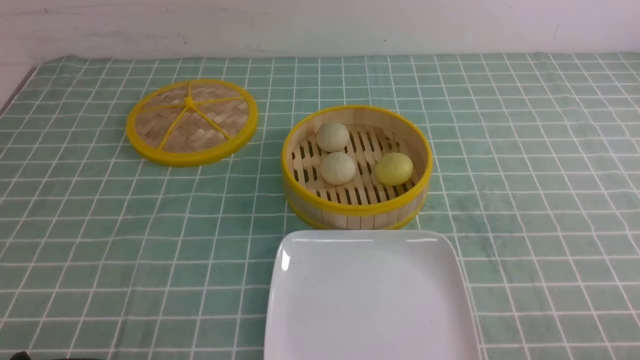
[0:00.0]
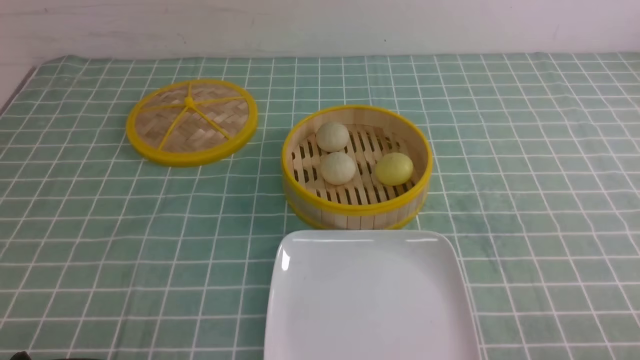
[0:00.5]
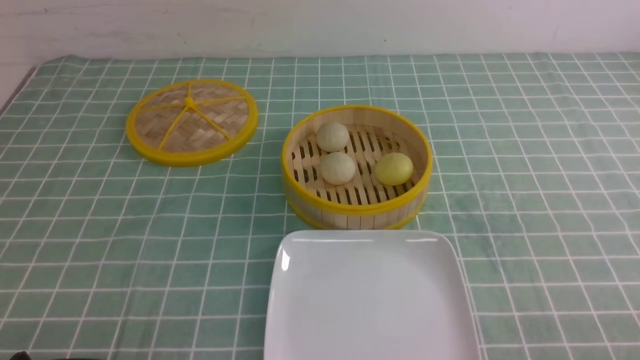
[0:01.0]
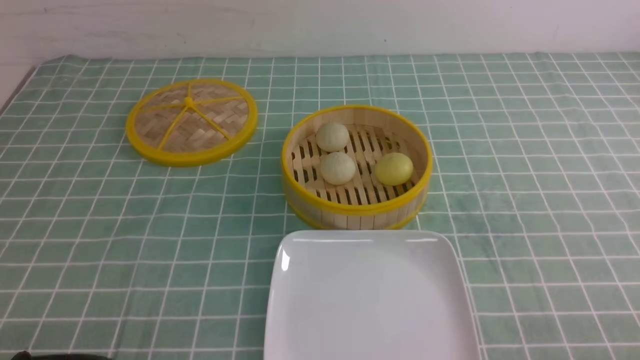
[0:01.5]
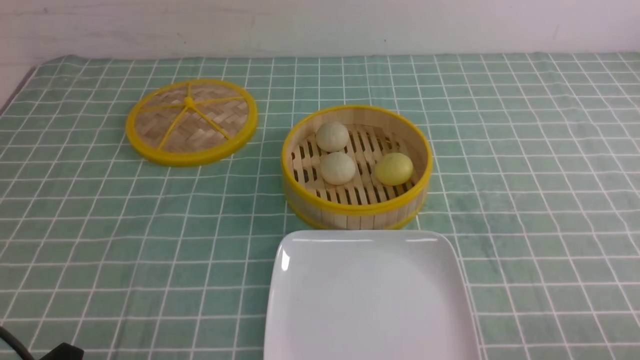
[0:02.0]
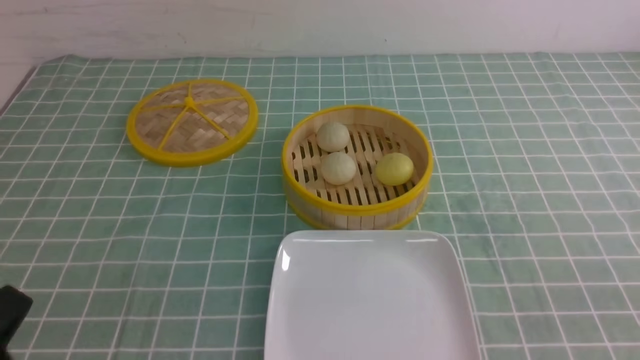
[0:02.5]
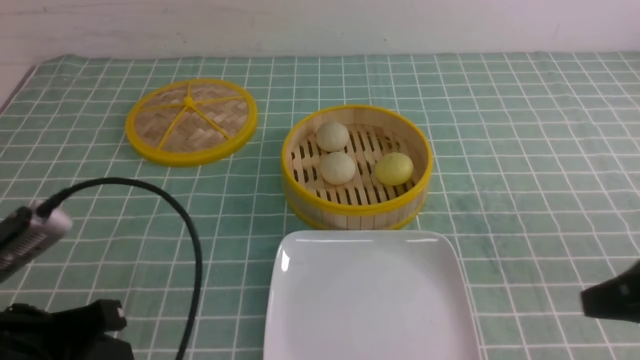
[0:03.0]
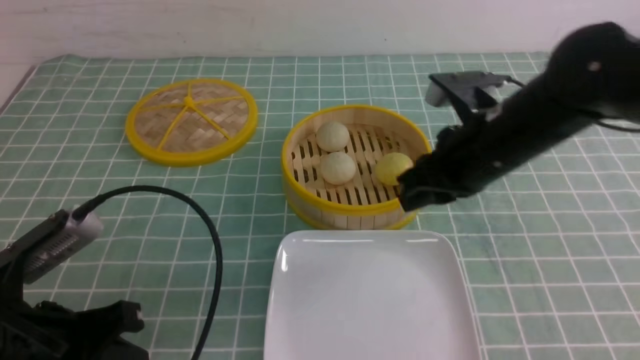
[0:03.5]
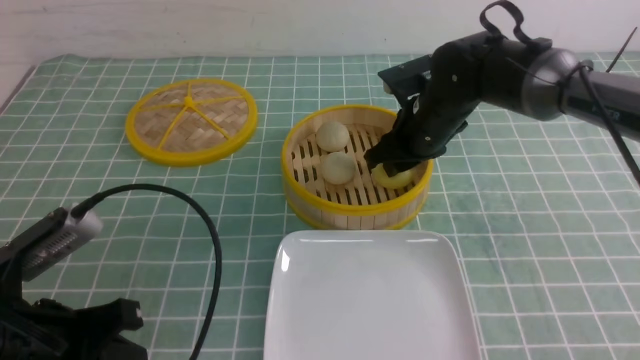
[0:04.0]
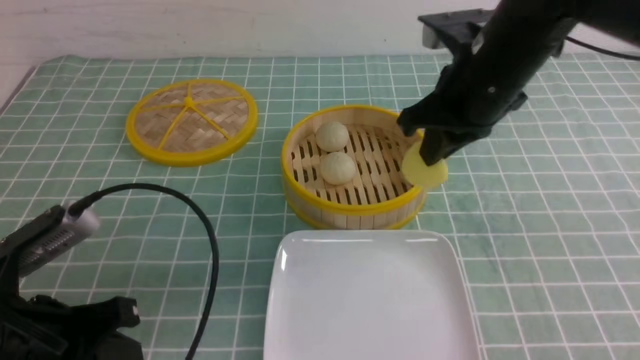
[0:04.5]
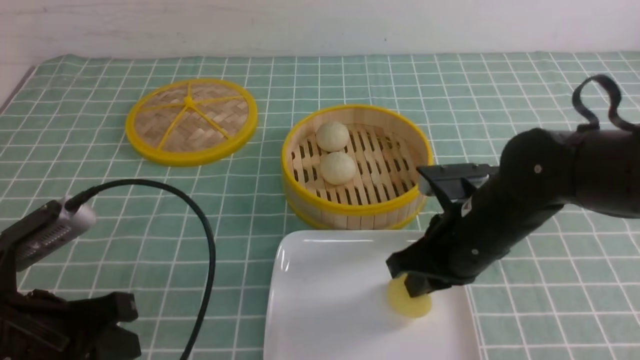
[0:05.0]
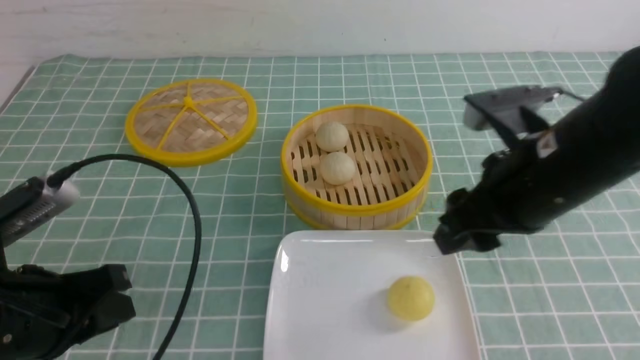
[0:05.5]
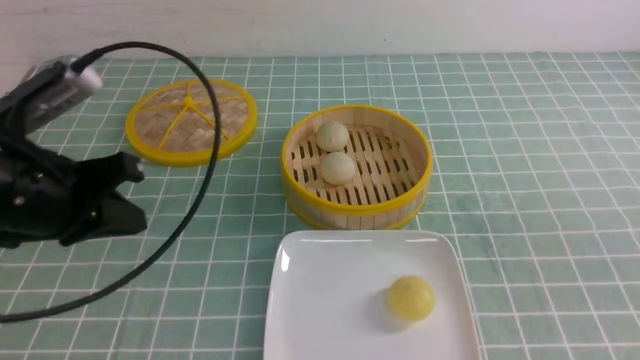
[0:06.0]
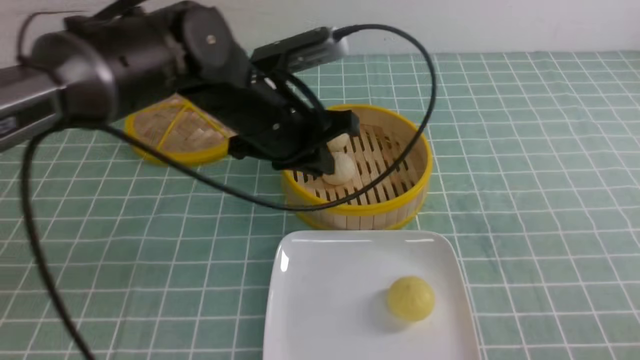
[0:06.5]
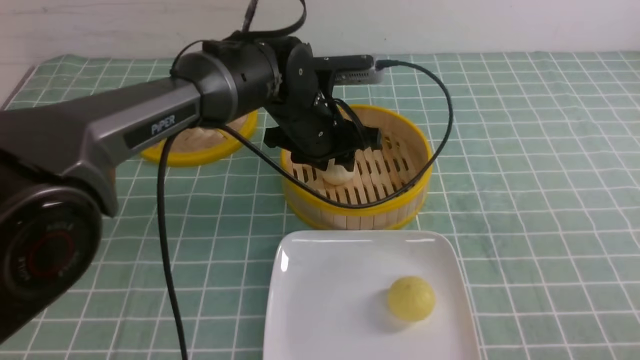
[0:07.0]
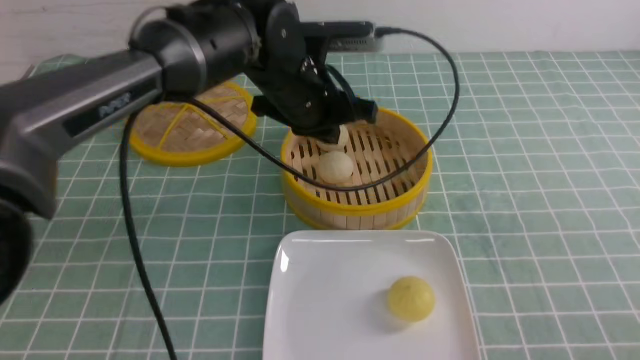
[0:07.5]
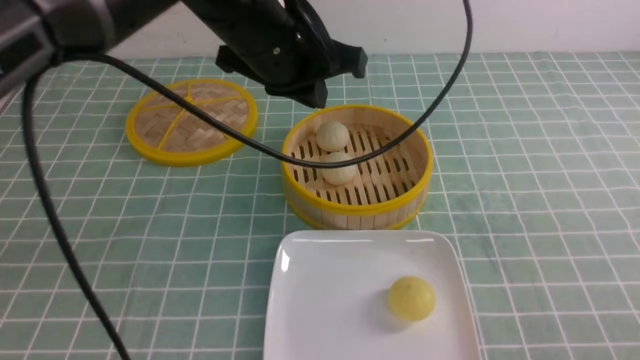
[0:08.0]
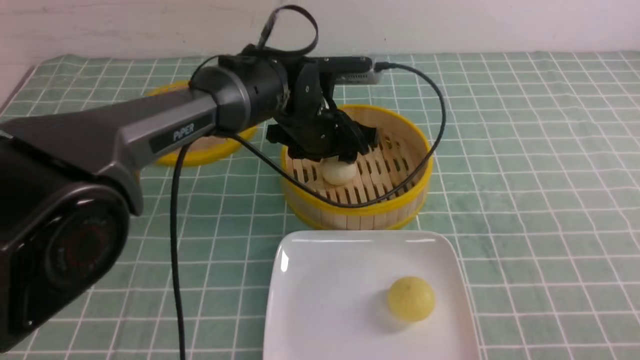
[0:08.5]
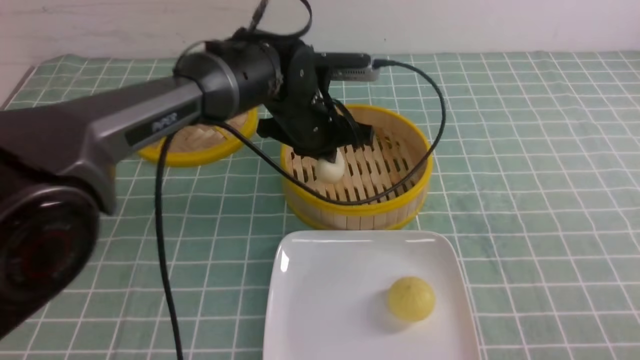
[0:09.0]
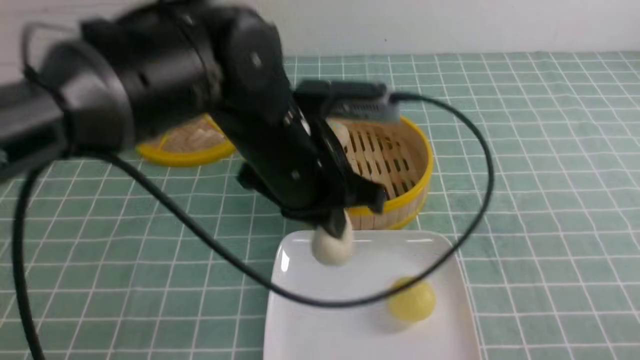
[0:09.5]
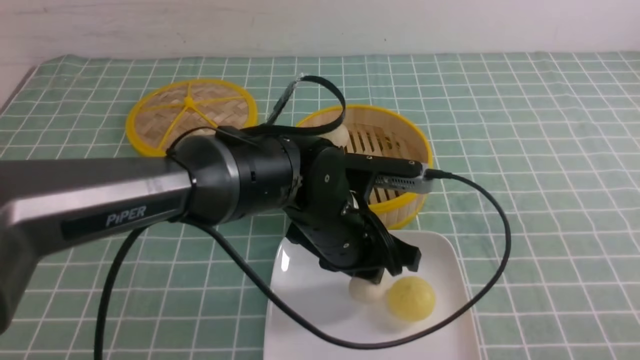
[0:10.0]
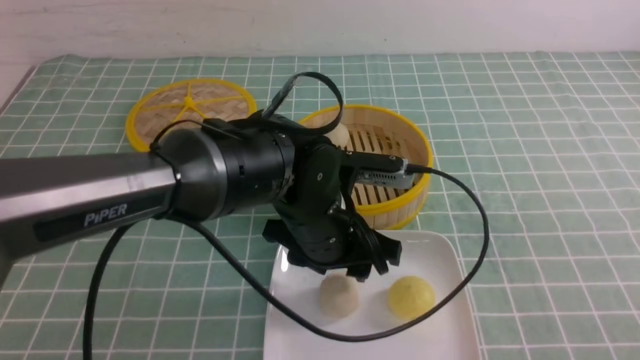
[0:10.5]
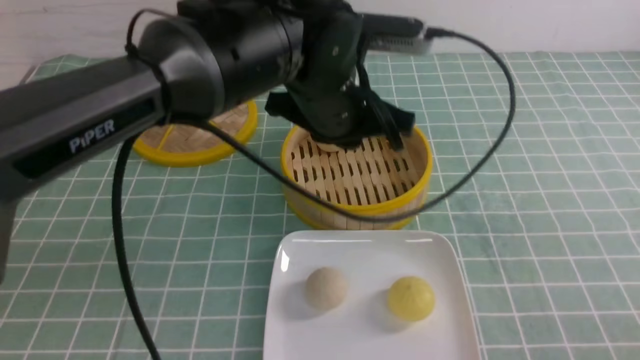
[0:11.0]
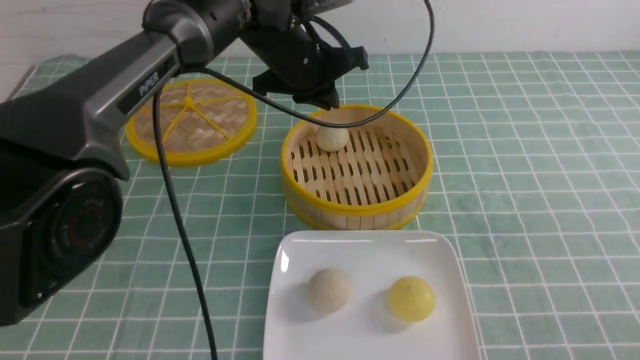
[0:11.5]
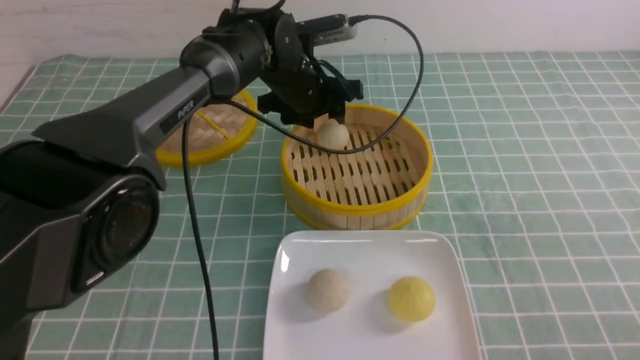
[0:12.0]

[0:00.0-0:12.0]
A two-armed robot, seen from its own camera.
Step, 0:00.0 to 0:04.0: use the right arm to grab the steamed stuffed bun that is closest to it.
Step, 0:04.5 to 0:05.0: use the right arm to put the steamed stuffed bun into the plate.
Step, 0:05.5 to 0:08.5: use the left arm to grab the steamed stuffed bun that is closest to it.
Step, 0:09.0 to 0:10.0: use the left arm to put the steamed stuffed bun into the plate.
0:02.0 to 0:04.0: The left gripper is displaced forward and upward by roughly 10 cm, and closes up, while the right gripper heads forward and to the left, covering roughly 40 cm, and closes, then reopens.
0:04.0 to 0:06.0: The right gripper moves backward and to the right, some 35 cm, and closes up, while the left gripper shifts about 10 cm forward and upward.
0:06.0 to 0:08.0: The right gripper goes some 5 cm downward. Meanwhile the left gripper shifts some 20 cm to the right and forward, and opens, then closes again.
0:08.0 to 0:10.0: The left gripper travels downward and backward by approximately 15 cm, and opens, then closes once more.
0:10.0 to 0:12.0: The left gripper is displaced forward by about 20 cm, and opens its fingers.

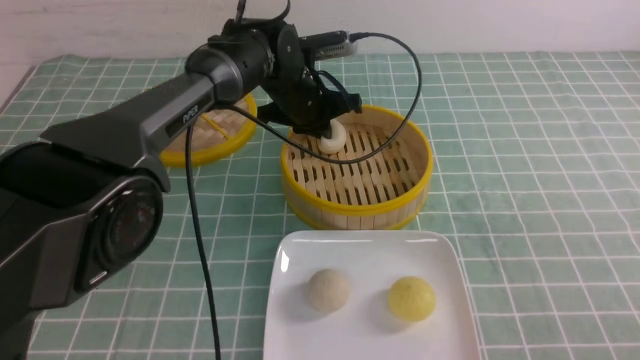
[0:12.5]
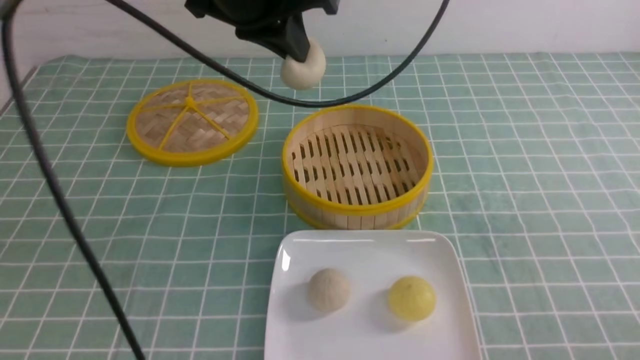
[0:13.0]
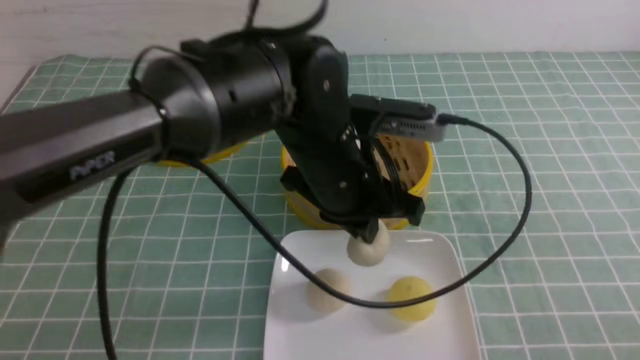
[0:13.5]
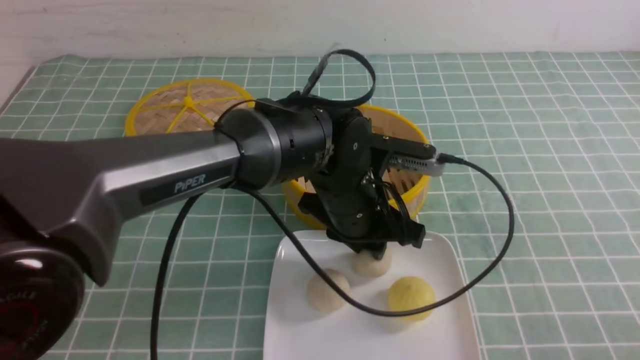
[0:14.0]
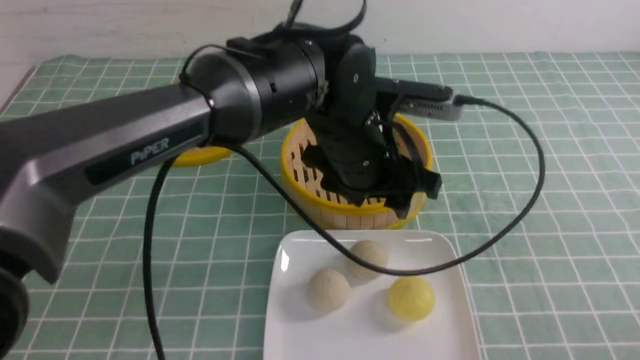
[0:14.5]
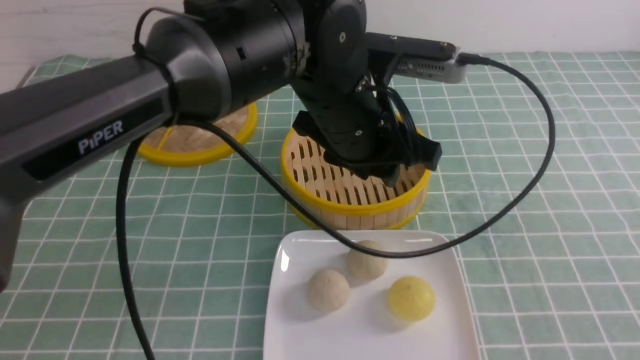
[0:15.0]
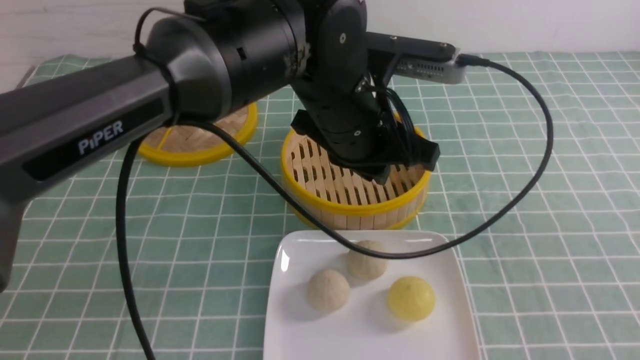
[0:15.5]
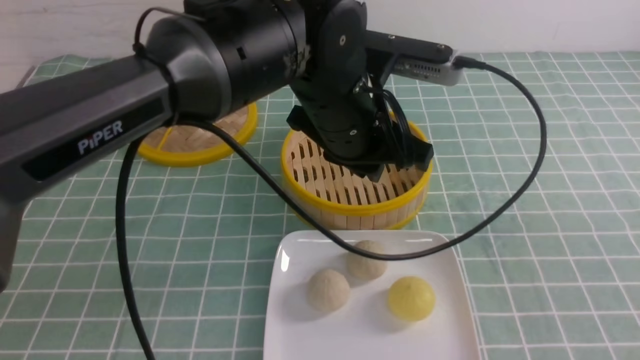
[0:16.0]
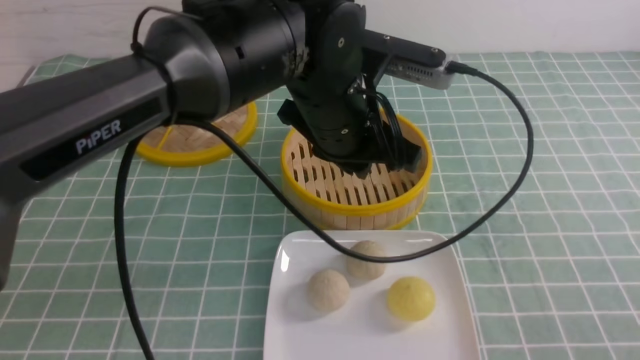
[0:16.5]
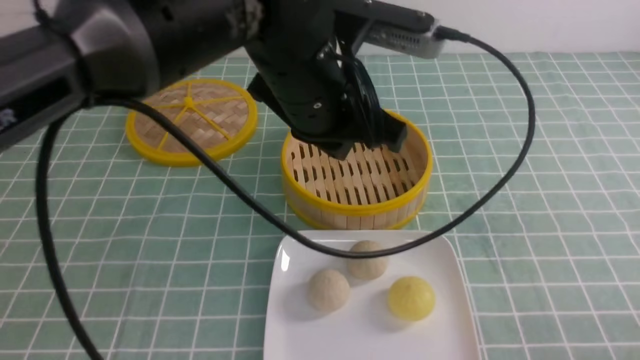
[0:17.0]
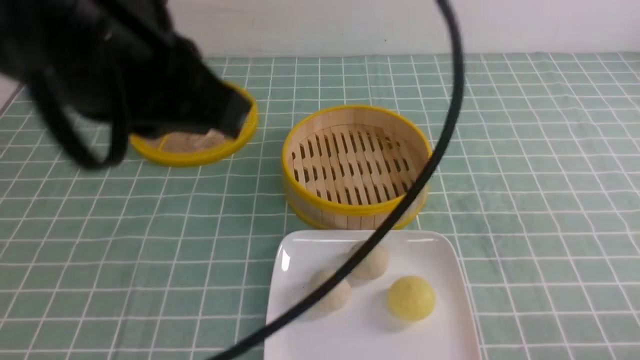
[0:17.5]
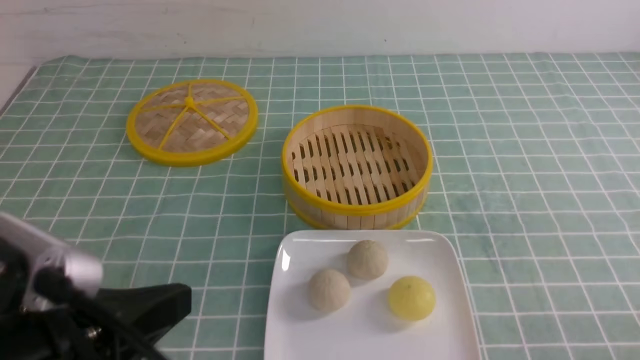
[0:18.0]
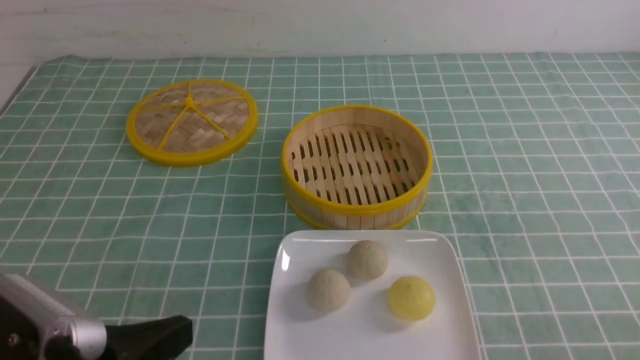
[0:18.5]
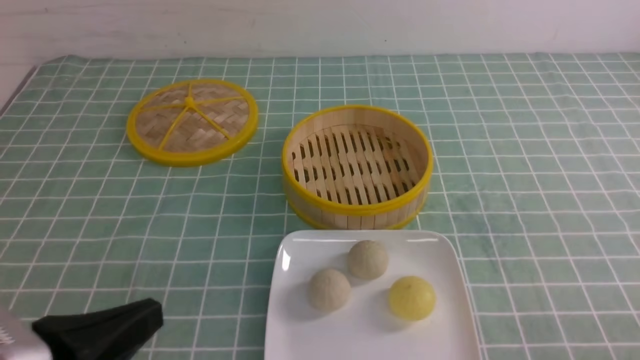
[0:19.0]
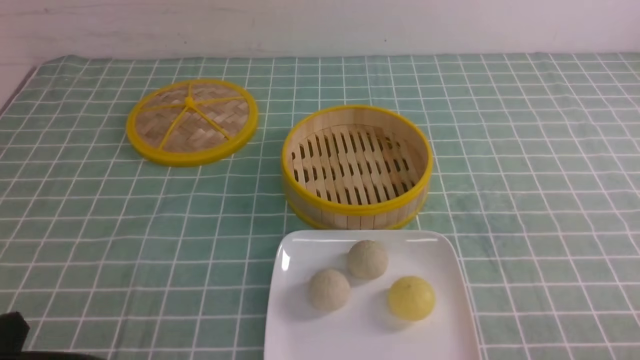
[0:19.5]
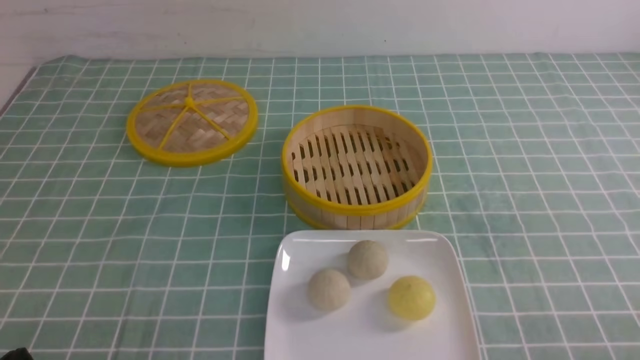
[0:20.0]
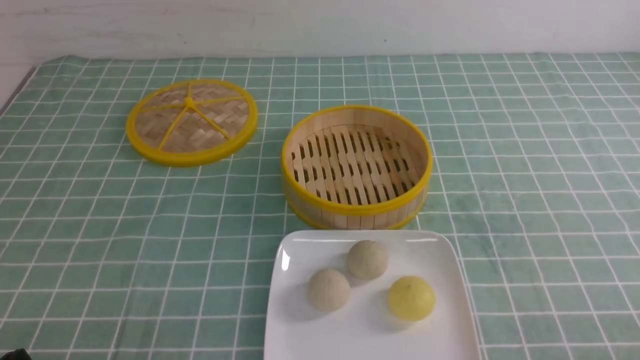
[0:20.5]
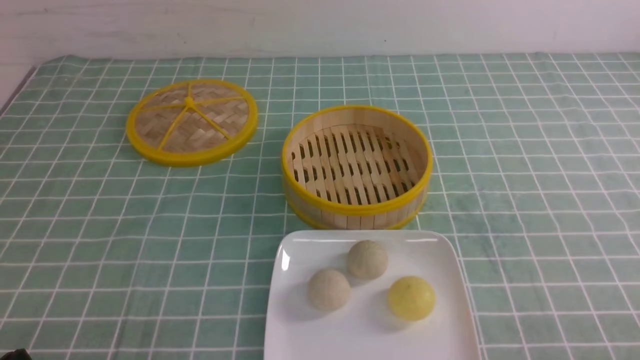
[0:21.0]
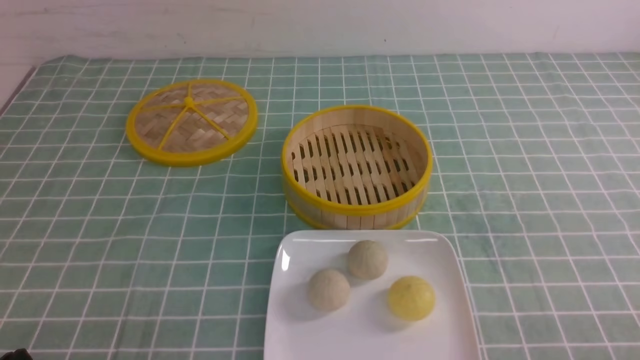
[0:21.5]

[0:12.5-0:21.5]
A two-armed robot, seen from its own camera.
Step, 0:12.5 to 0:14.0: use the left arm to put the steamed stuffed bun into the plate.
0:12.5 to 0:14.5: The left gripper goes up and down, about 20 cm each way, reversing 2 times, and opens.
0:14.5 to 0:17.0: The left gripper moves upward, approximately 10 cm, and closes its fingers; the right gripper is displaced downward by about 10 cm, and closes up.
0:17.0 to 0:19.5: The left gripper moves to the left, backward and downward, approximately 35 cm.
